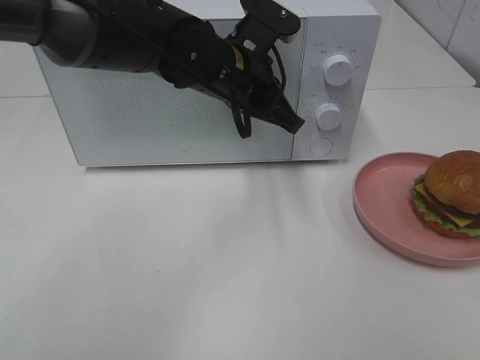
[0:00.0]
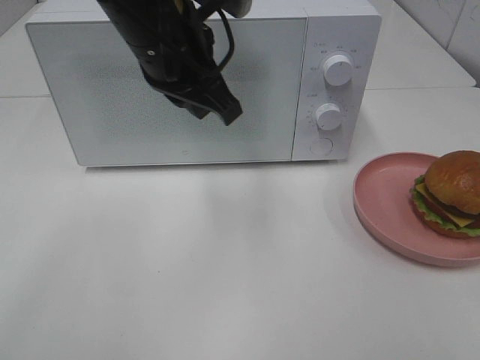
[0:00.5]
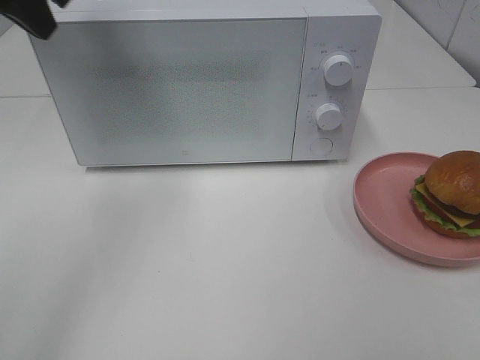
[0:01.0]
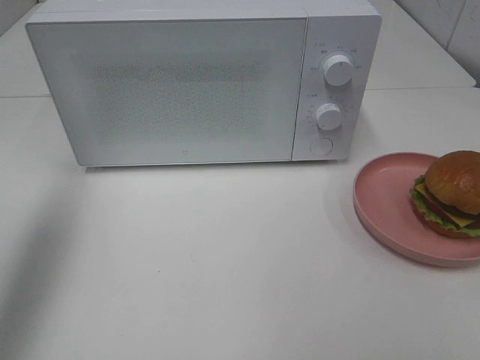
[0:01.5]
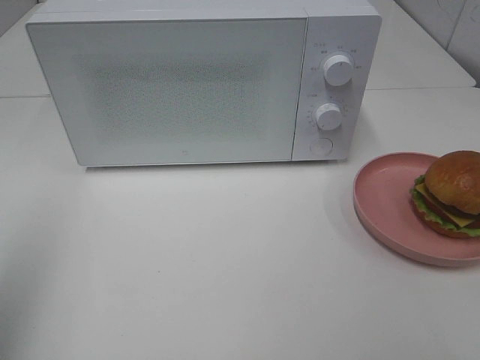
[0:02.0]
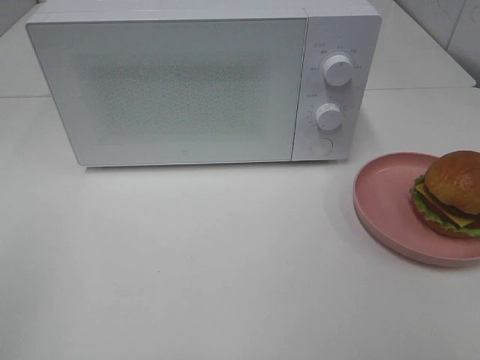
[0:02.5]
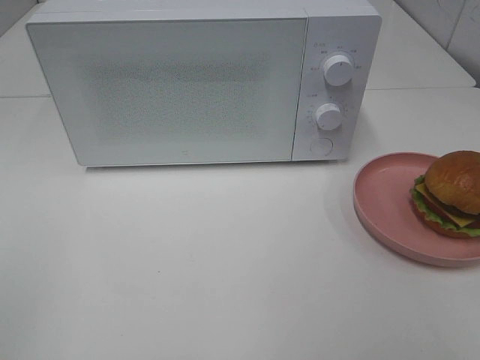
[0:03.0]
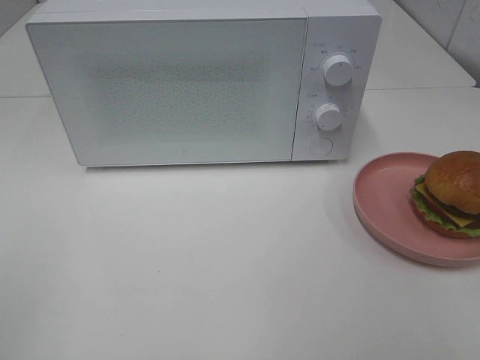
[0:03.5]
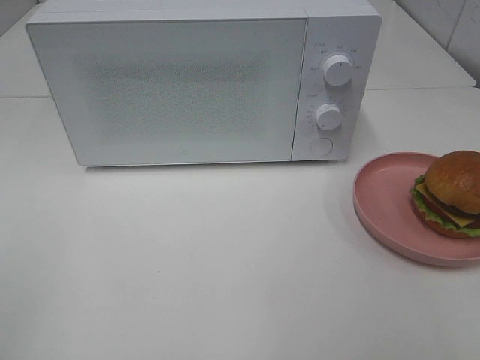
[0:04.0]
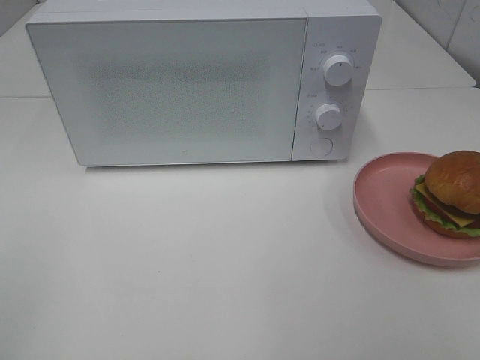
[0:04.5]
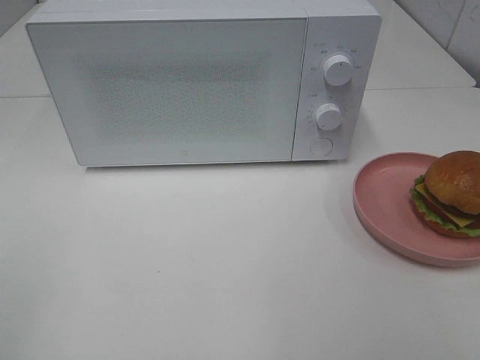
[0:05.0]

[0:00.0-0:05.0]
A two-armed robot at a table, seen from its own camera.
Task of the whole recording: Heat the burger.
0:00.0 to 0:02.5: The left gripper is displaced backward and to the left by some 50 cm.

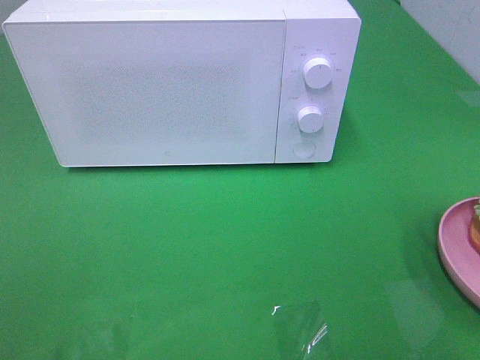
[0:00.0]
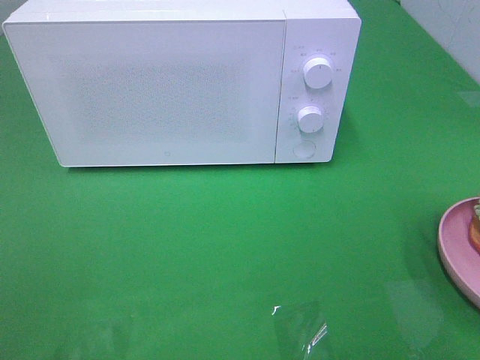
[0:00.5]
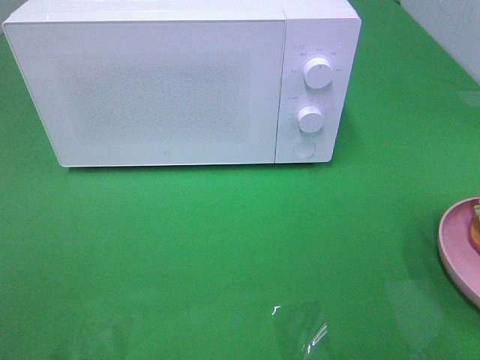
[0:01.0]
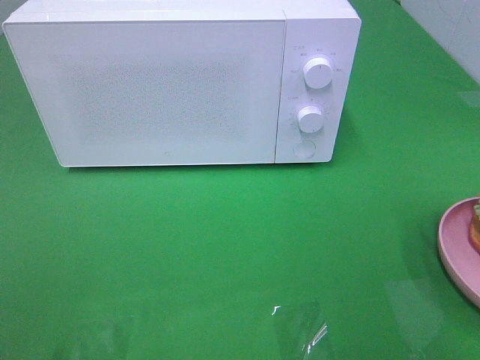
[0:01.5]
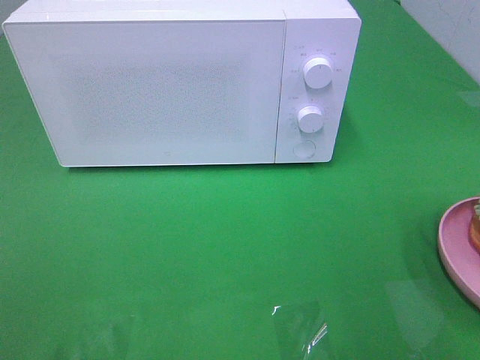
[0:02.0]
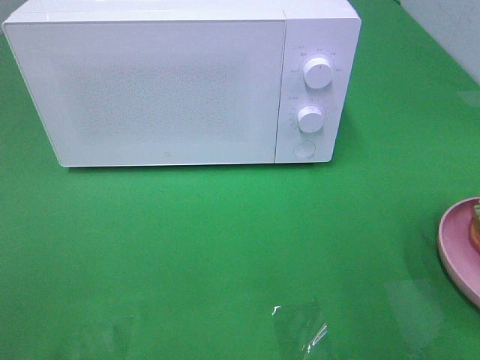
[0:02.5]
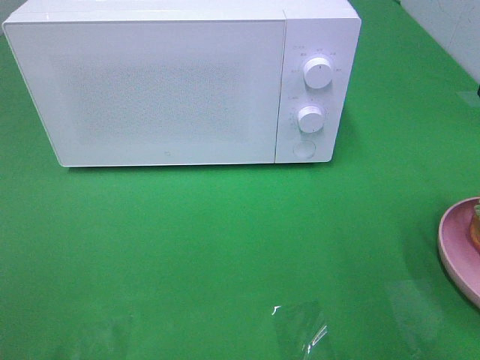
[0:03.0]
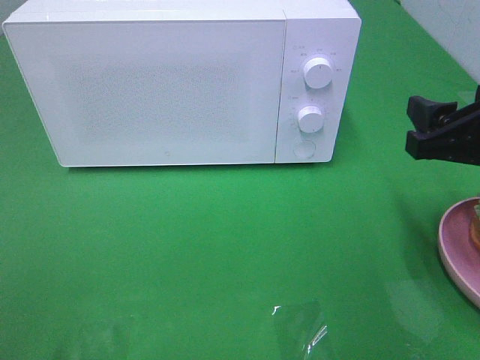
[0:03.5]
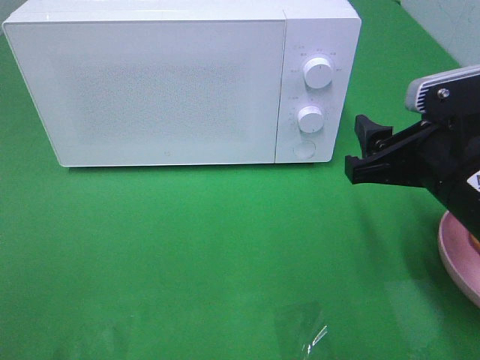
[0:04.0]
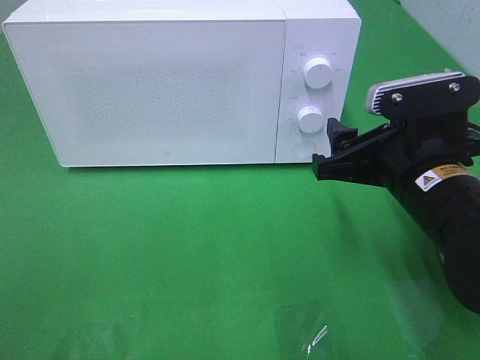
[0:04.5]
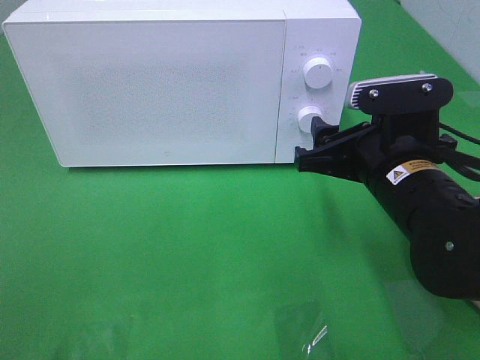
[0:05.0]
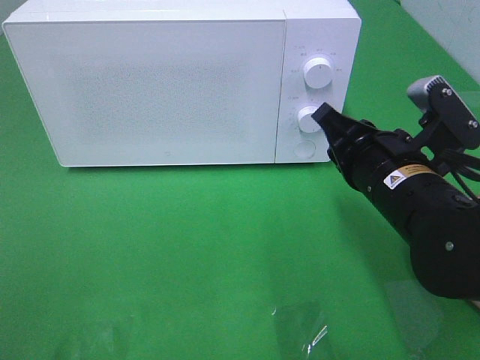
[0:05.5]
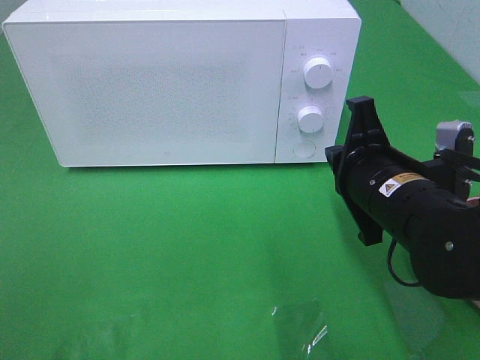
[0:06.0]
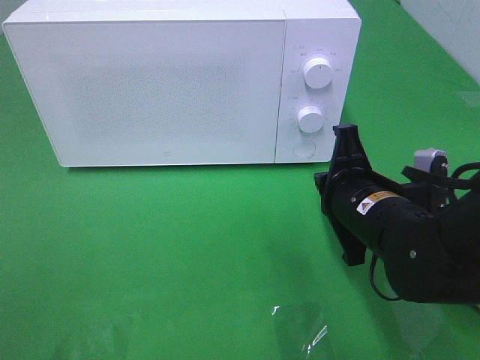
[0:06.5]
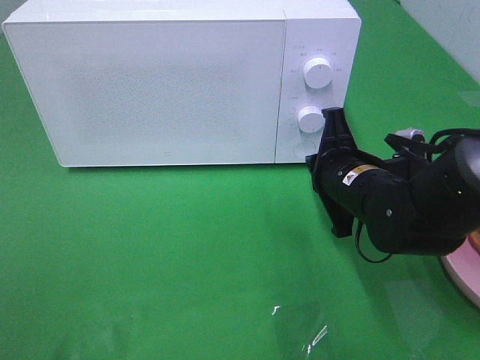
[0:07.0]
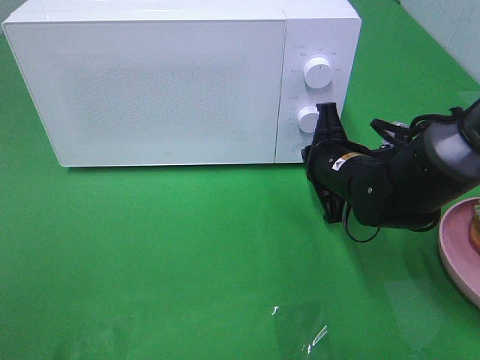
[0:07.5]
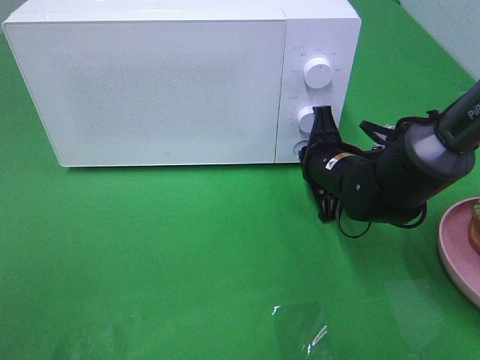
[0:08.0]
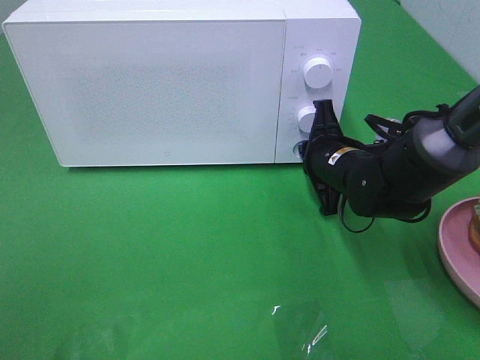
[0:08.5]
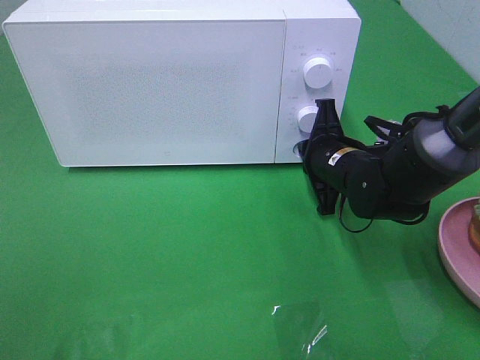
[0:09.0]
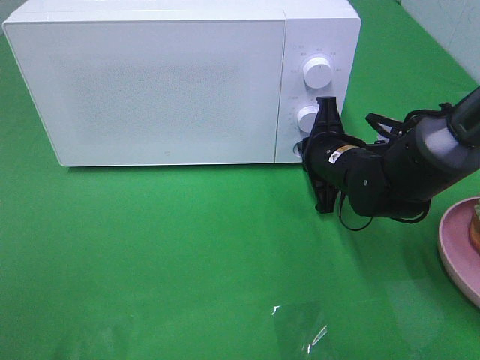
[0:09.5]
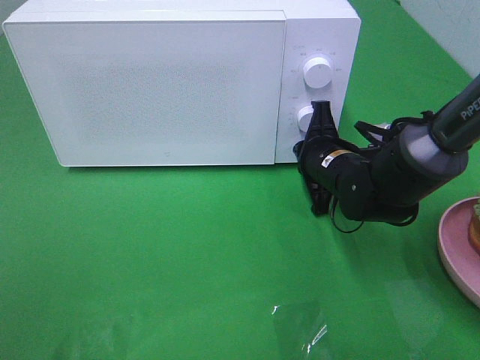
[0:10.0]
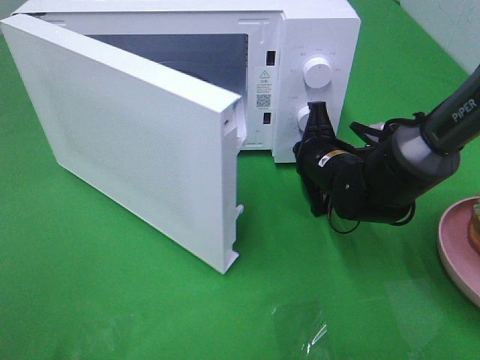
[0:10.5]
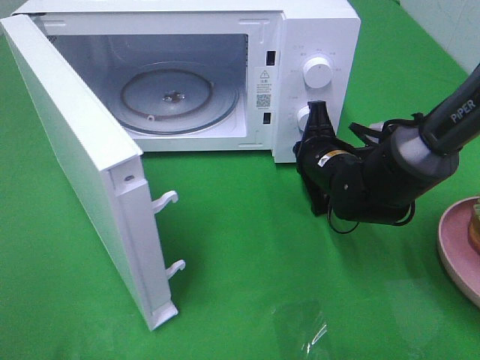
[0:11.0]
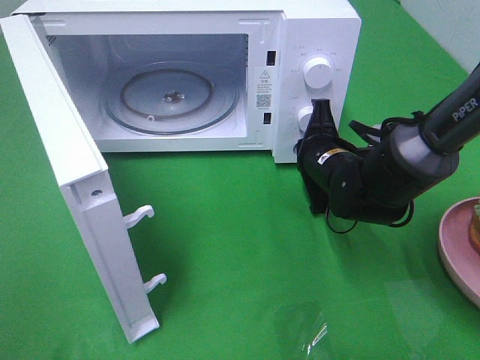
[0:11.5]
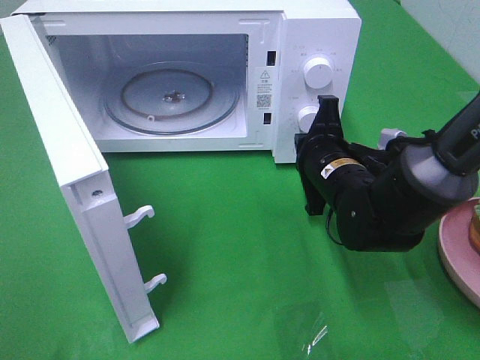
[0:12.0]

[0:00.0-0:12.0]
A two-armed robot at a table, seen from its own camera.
Task of the whole recording: Heat the burger.
Step, 0:00.0 to 0:11.5: Right hand: press the switch.
0:02.0 to 0:04.0: The right gripper moves forward, to the left and downward, about 15 cm.
0:04.0 to 0:06.0: The right gripper shifts by roughly 5 cm, and closes.
0:06.0 to 0:08.0: The right gripper moves forward and downward, approximately 15 cm.
0:08.0 to 0:10.0: Neither gripper changes place.

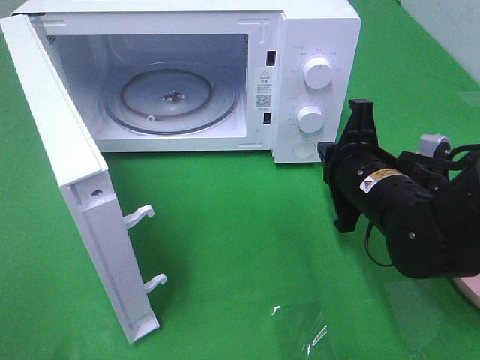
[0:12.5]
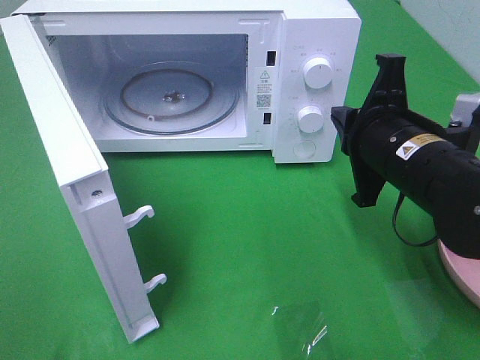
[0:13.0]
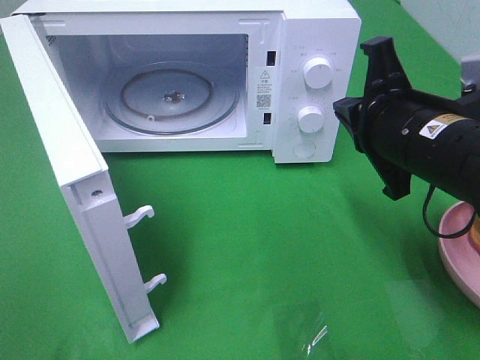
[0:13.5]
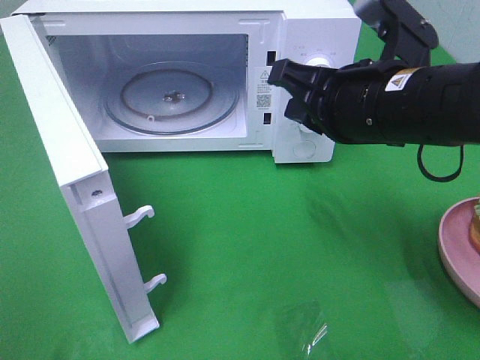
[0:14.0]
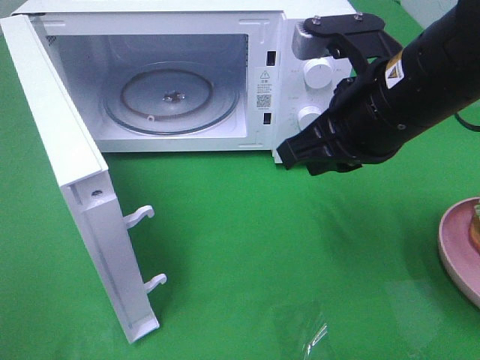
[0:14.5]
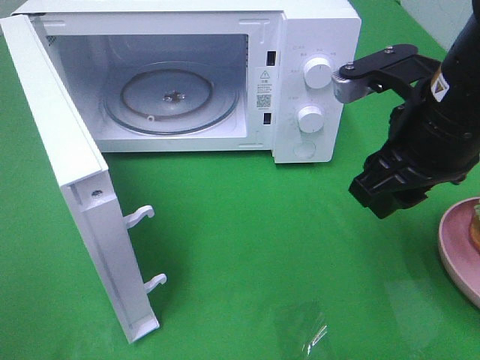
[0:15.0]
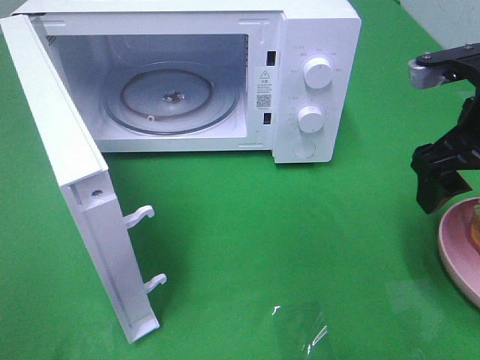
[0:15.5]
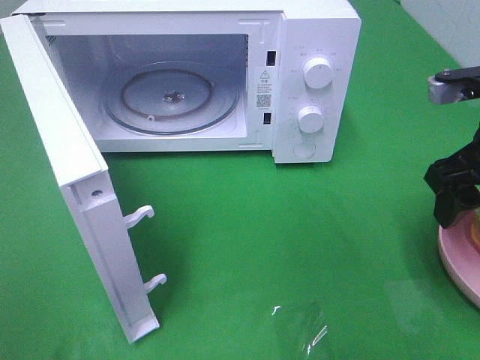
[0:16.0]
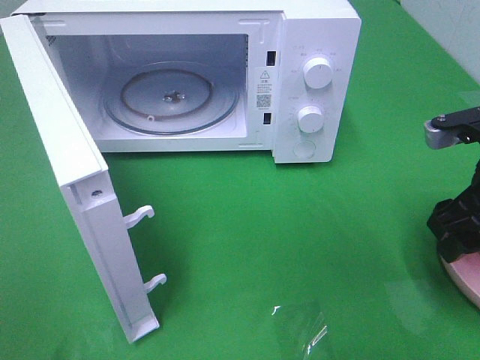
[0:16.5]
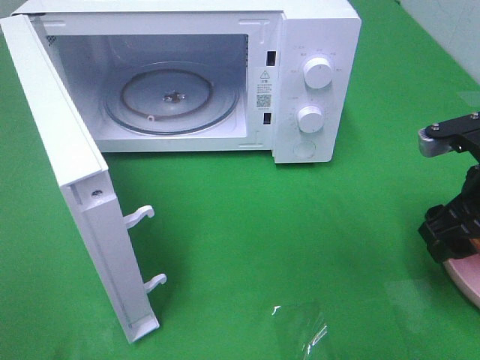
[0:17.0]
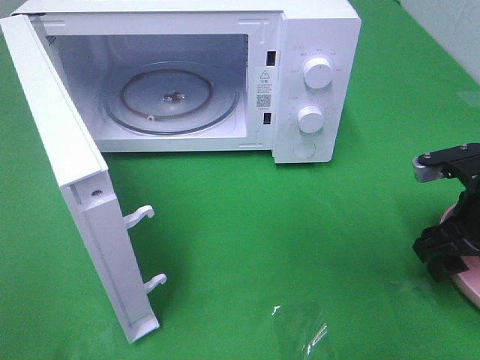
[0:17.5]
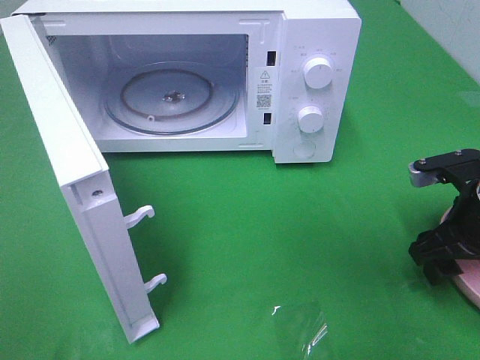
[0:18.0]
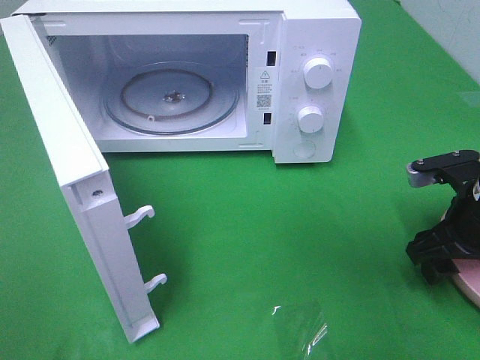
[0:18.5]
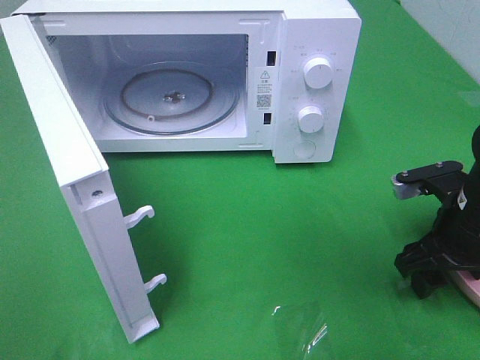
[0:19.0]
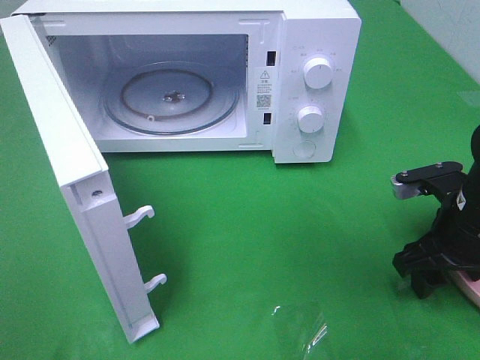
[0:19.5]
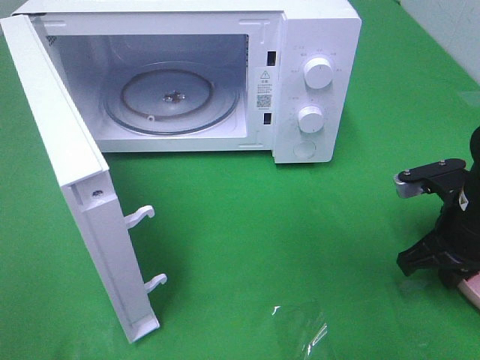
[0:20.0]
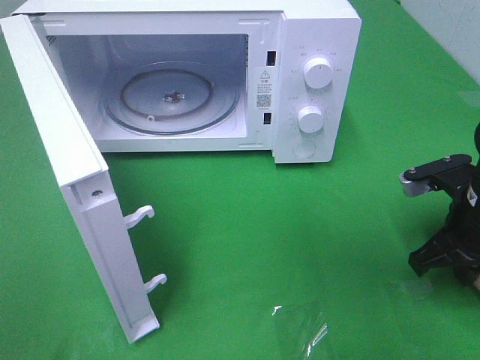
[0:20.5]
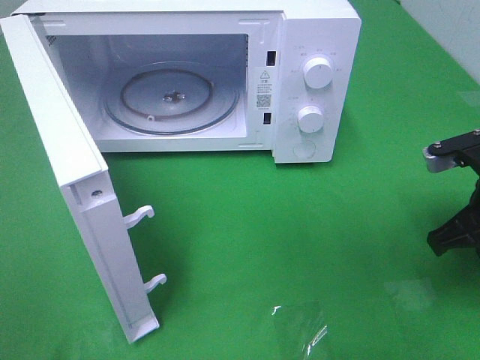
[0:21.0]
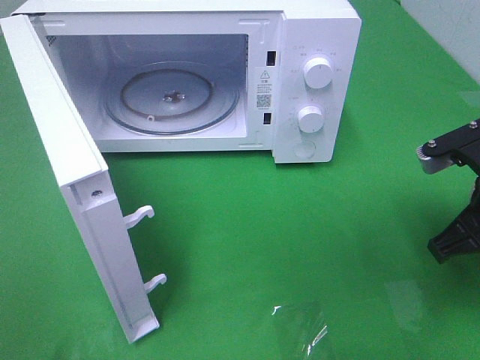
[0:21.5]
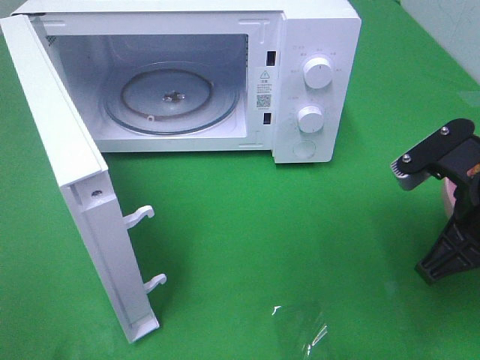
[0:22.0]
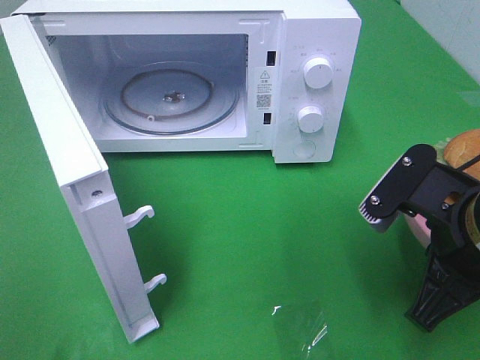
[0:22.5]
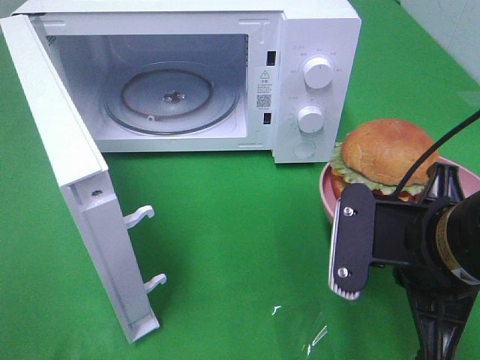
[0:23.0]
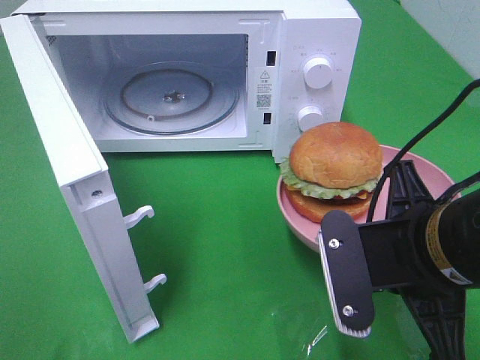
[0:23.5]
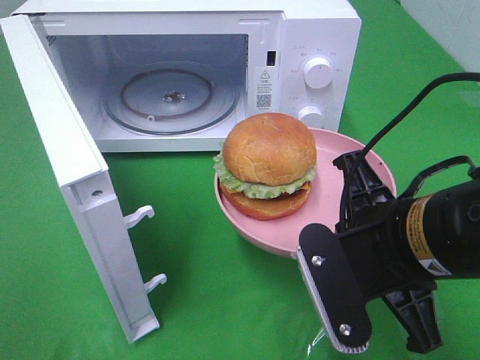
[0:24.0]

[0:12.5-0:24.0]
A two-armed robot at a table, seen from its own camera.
Task of the whole recording: Heat the burger.
Step, 0:12.5 to 0:19.5: Right hand: grab the plate with the hamburger.
0:12.5 to 0:14.5: The right gripper goes approximately 15 cm upward.
0:14.5 to 0:16.5: The right gripper goes approximately 15 cm to the right and downward, and opens its fingers.
0:16.5 to 0:18.5: The right gripper moves downward, roughly 10 cm.
0:18.5 to 0:20.0: The right gripper closes.
0:20.0 to 0:22.0: The right gripper heads upward and backward, covering about 10 cm.
0:22.0 to 0:24.0: The right gripper heads to the left, covering roughly 10 cm.
